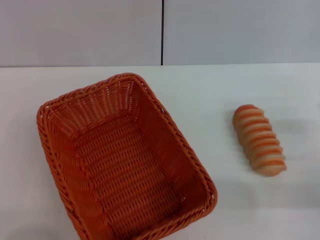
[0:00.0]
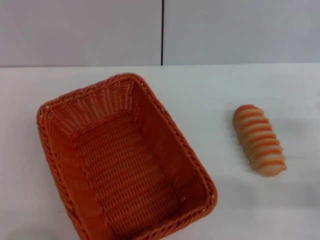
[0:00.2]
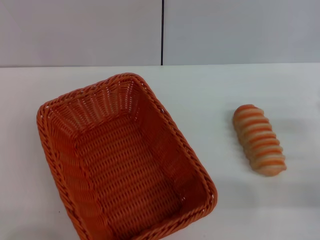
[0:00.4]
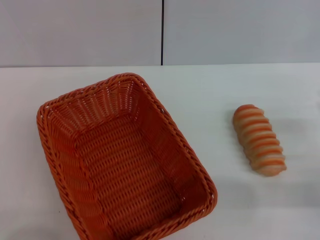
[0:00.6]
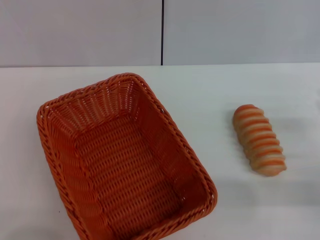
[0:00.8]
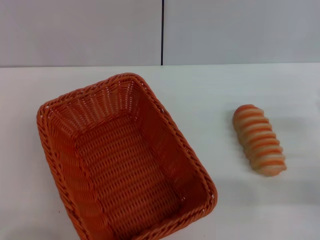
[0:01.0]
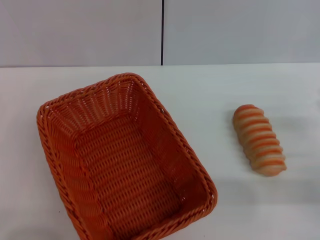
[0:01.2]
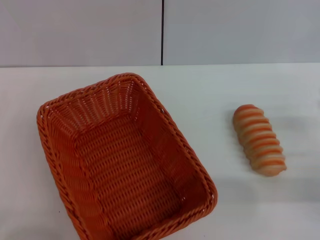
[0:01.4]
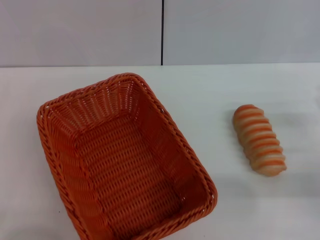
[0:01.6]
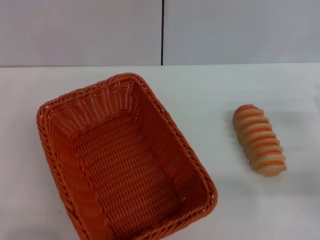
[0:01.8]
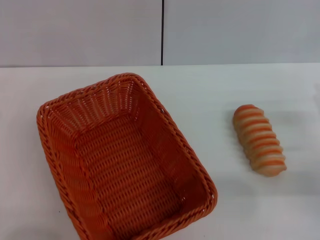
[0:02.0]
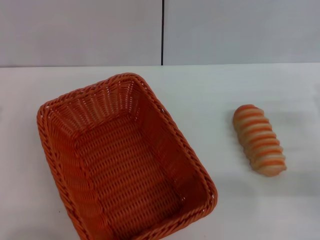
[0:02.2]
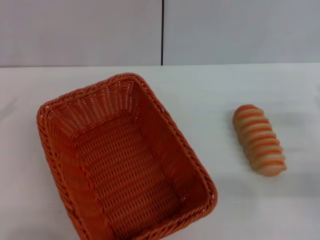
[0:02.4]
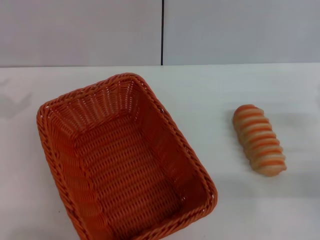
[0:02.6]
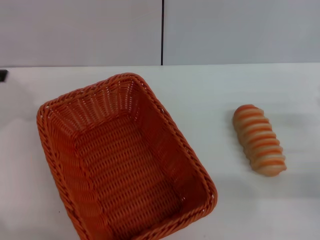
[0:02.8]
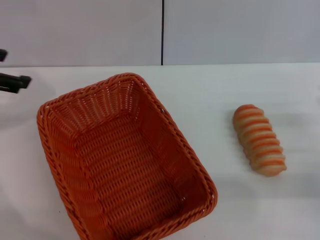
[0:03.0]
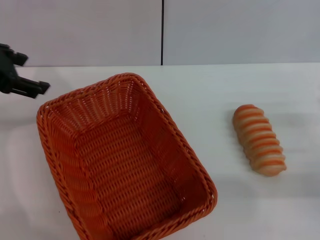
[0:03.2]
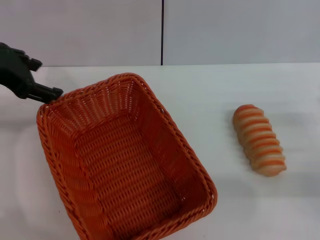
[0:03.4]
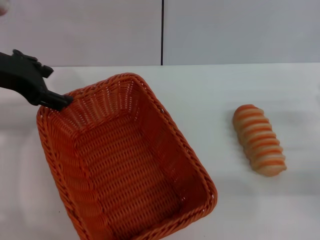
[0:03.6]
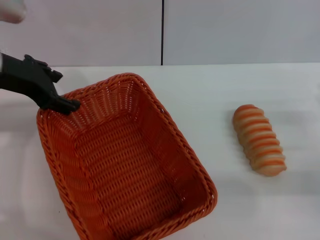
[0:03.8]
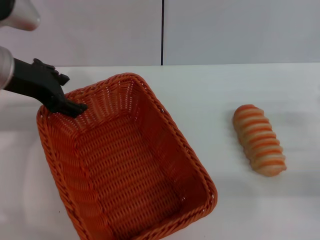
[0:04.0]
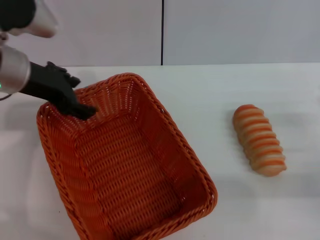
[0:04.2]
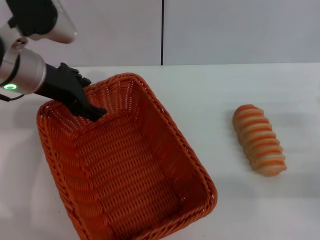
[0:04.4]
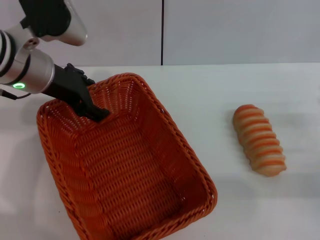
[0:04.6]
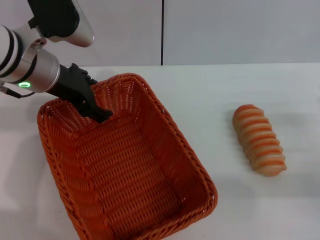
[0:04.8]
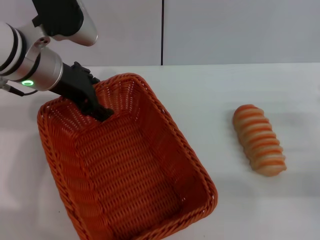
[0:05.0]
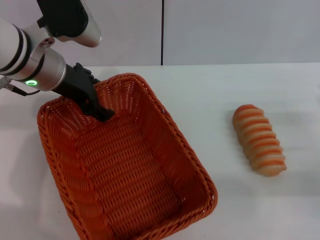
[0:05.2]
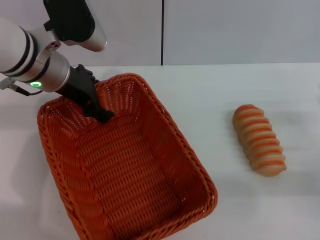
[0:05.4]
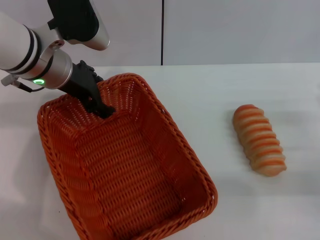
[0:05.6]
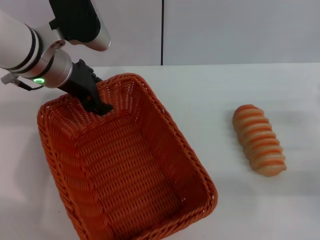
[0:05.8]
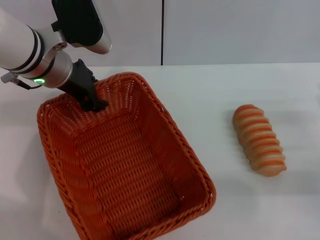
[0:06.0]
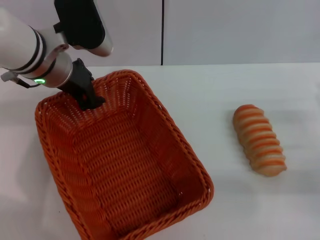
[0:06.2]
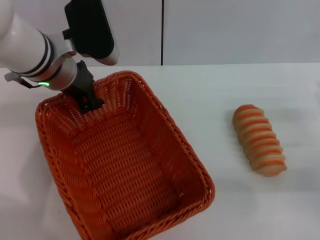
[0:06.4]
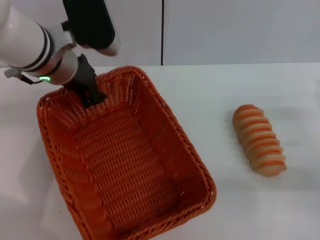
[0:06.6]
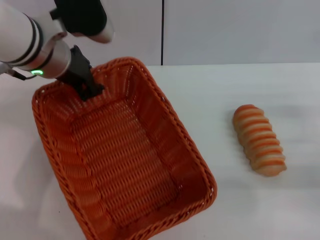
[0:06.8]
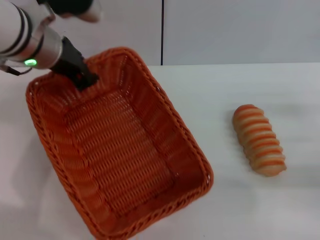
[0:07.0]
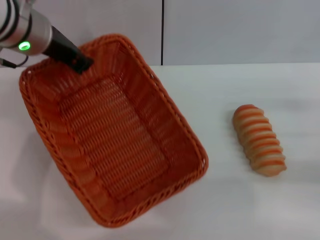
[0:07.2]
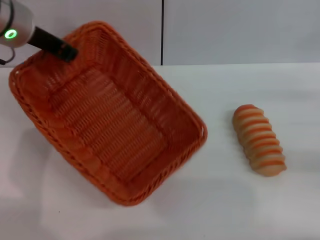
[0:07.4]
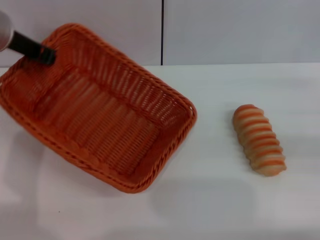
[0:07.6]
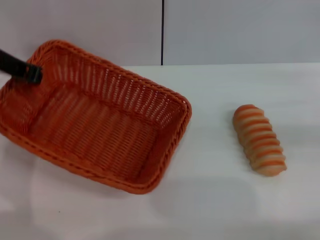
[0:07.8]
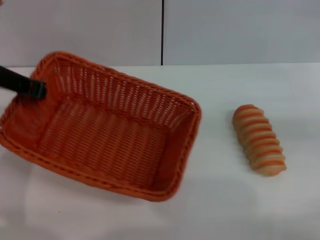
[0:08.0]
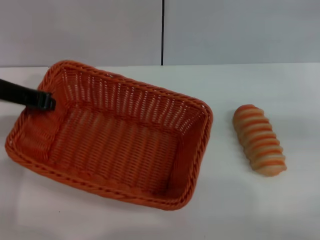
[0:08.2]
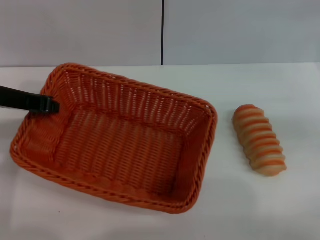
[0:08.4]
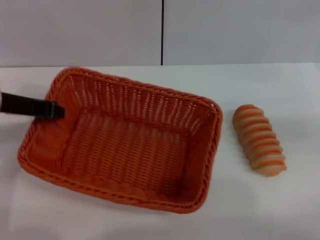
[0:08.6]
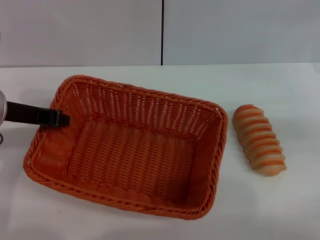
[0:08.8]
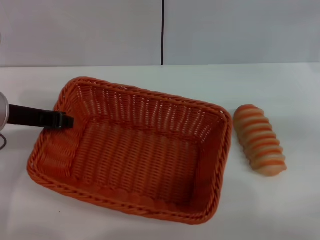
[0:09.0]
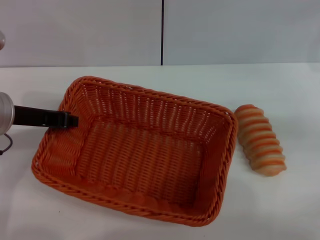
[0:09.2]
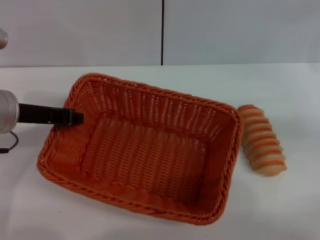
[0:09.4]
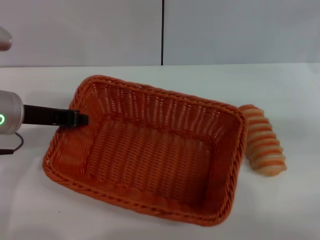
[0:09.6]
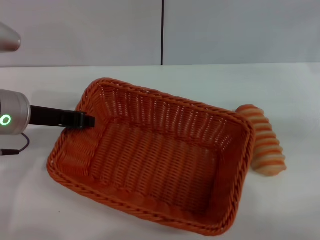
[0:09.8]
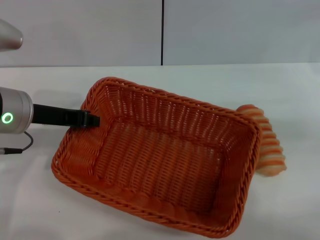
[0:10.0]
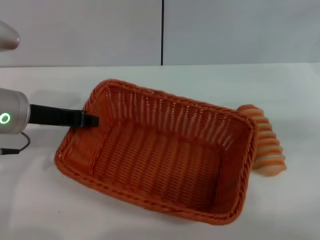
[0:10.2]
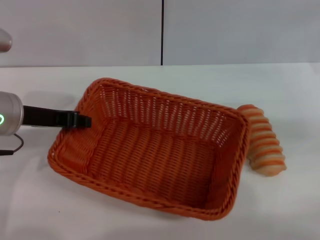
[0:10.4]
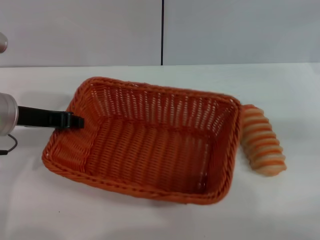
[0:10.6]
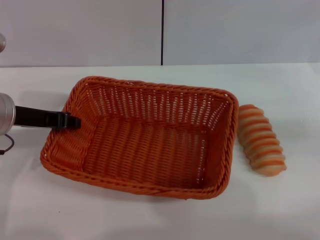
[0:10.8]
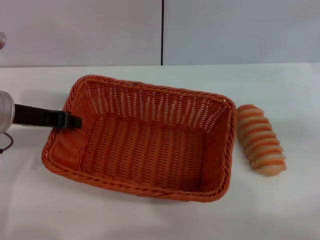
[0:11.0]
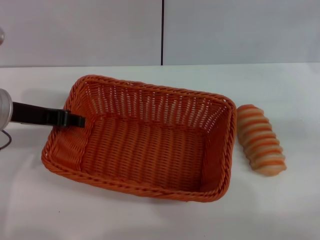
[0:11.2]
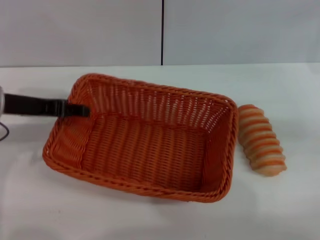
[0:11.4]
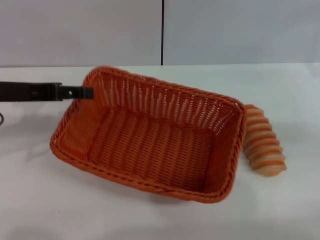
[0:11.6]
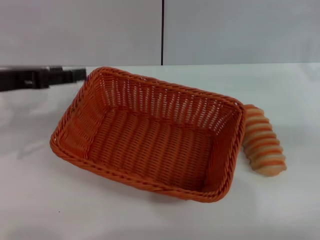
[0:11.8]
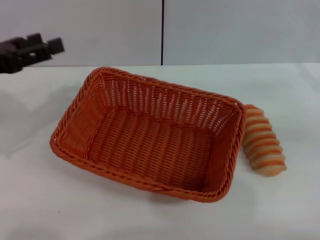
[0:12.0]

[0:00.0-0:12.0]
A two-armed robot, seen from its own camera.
Step, 0:00.0 to 0:07.0: Pick up the light basket with the left gripper.
Step, 0:07.4 to 0:11.6: Place the light basket in the center of view with the left gripper.
0:01.6 to 0:03.0: The left gripper shifts approximately 25 cm upward, forward and to the right.
0:03.0 to 0:04.4: The left gripper moves to the right and downward, roughly 10 cm.
0:04.4 to 0:06.0: The grippers stay close to where they were, moving slightly.
0:06.0 to 0:07.6: The left gripper heads to the left and upward, covering about 10 cm, and closes up, while the right gripper moves upward, to the right and forward, about 10 cm.
0:07.6 to 0:09.0: The left gripper shifts some 10 cm backward and downward. Meanwhile the right gripper moves about 5 cm.
0:09.0 to 0:10.4: The grippers move only a little.
0:10.4 to 0:12.0: The left gripper is displaced to the left by some 10 cm, and opens up.

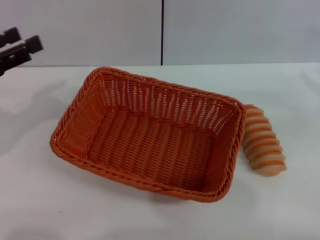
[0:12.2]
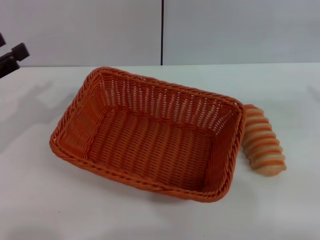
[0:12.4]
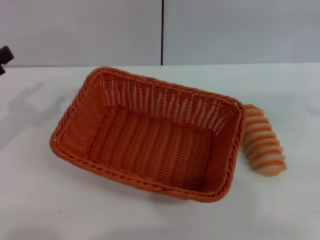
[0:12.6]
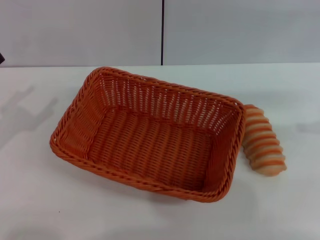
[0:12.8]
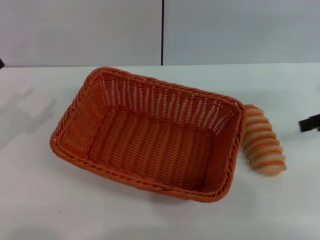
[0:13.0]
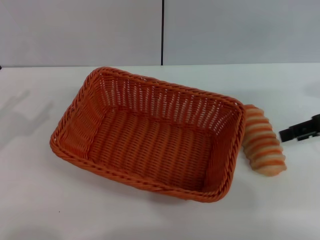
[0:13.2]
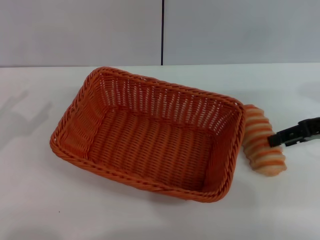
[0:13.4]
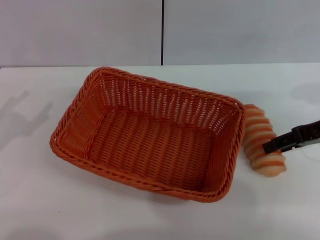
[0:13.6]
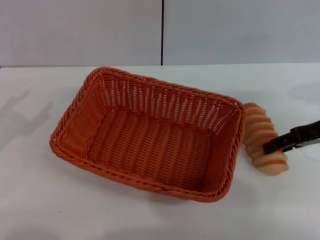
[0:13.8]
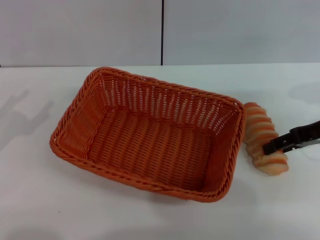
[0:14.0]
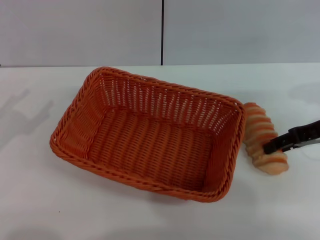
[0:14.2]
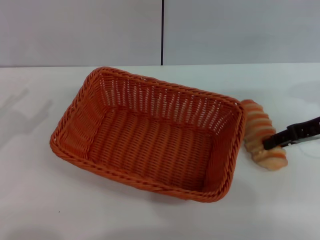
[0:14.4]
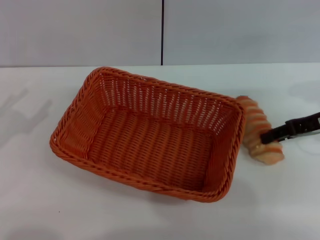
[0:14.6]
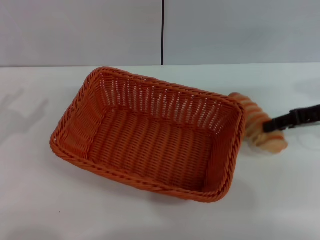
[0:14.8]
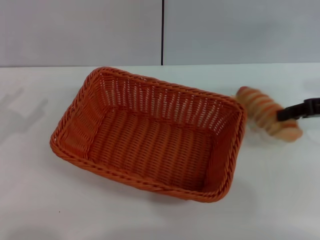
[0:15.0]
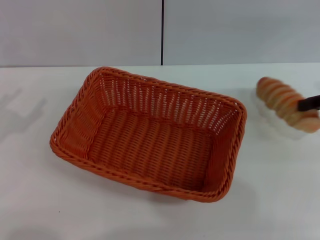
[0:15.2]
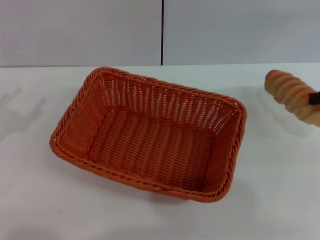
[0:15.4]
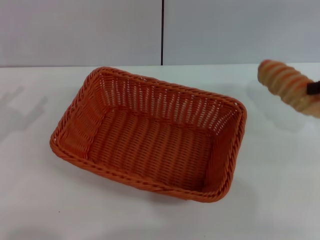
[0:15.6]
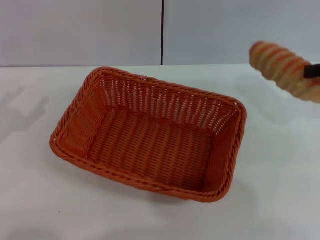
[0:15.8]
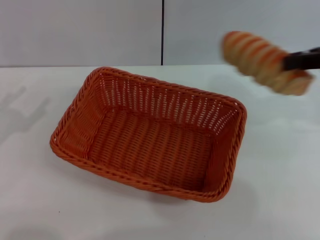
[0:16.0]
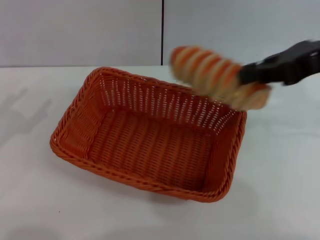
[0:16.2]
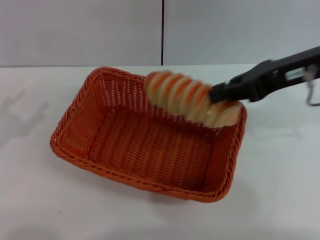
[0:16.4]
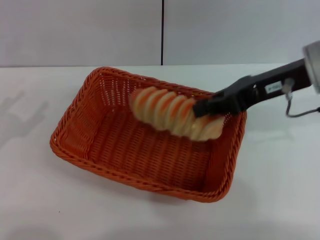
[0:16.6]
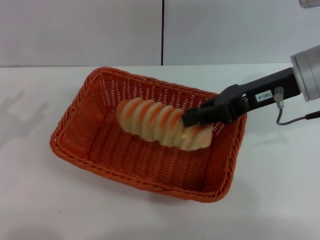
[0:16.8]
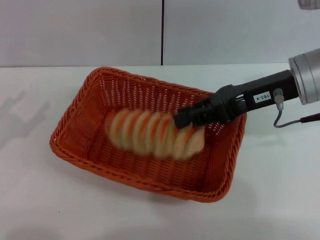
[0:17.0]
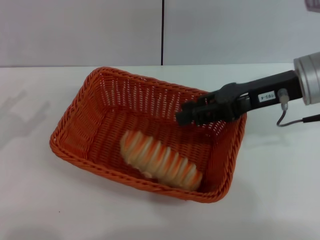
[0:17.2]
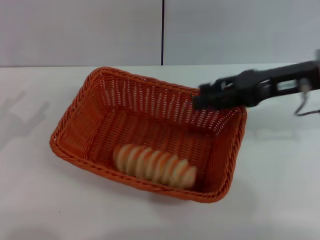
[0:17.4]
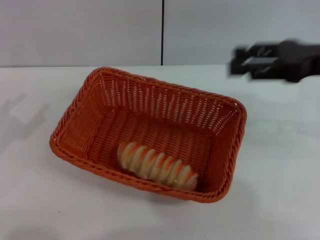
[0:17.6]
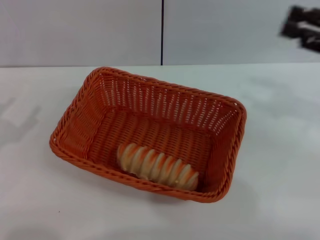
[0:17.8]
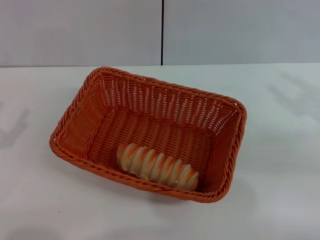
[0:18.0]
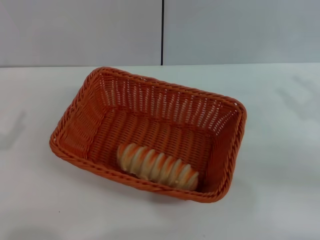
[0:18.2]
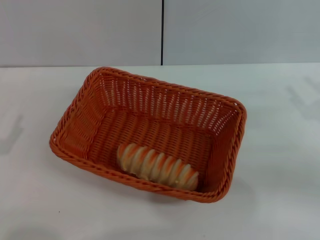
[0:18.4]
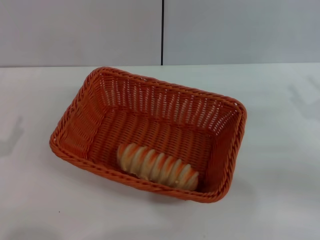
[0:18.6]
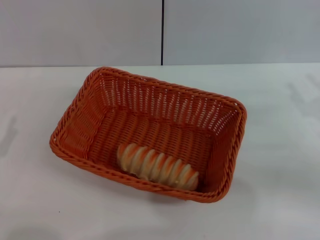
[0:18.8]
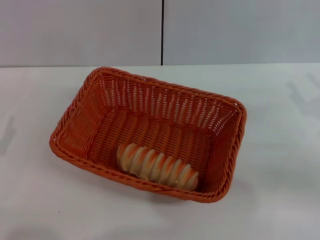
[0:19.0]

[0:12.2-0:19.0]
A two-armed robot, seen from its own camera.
Step, 0:12.2 to 0:15.2: Pick up the long bread with the right gripper.
Step, 0:15.4 to 0:17.4: Place the long bread into the light basket with the right gripper.
0:12.2 to 0:13.6: The right gripper moves to the left, about 10 cm, while the left gripper is displaced downward by roughly 5 cm.
0:13.6 to 0:15.0: The right gripper closes its fingers.
0:15.0 to 0:16.2: The right gripper is displaced upward and to the left by approximately 15 cm, and closes its fingers.
0:16.2 to 0:17.6: The right gripper goes approximately 5 cm downward, and opens.
0:17.6 to 0:19.0: The right gripper heads downward, backward and to the right, covering roughly 15 cm.

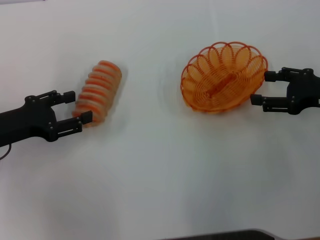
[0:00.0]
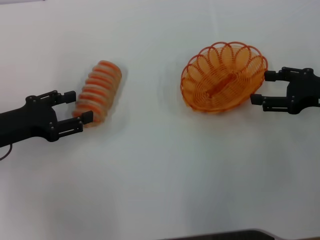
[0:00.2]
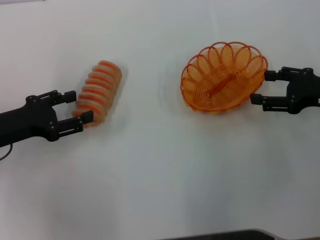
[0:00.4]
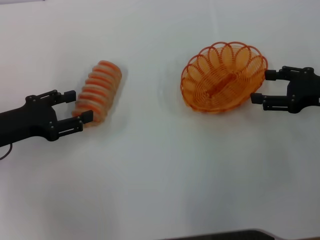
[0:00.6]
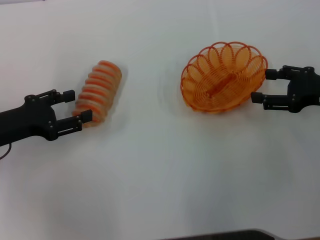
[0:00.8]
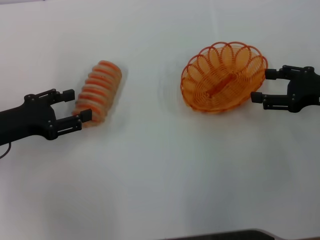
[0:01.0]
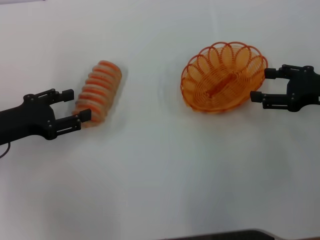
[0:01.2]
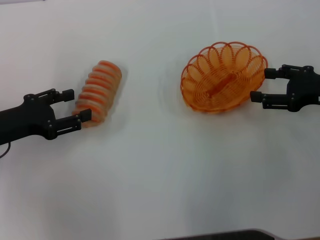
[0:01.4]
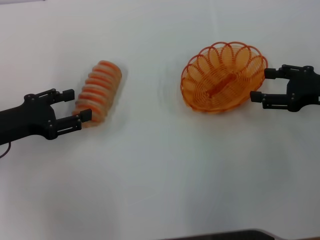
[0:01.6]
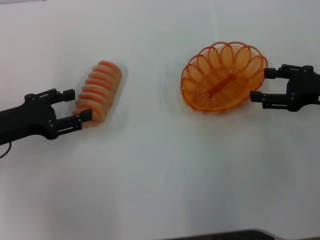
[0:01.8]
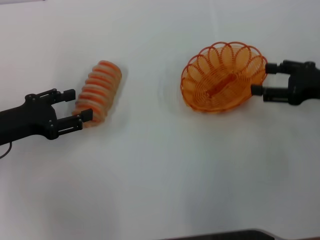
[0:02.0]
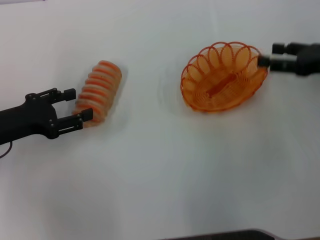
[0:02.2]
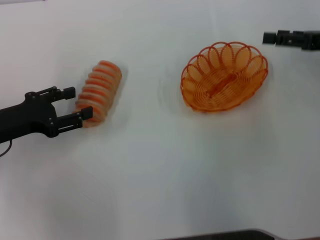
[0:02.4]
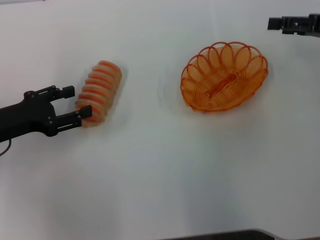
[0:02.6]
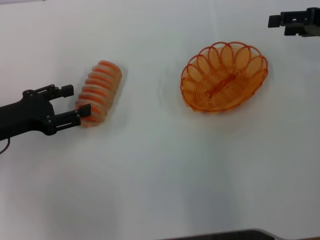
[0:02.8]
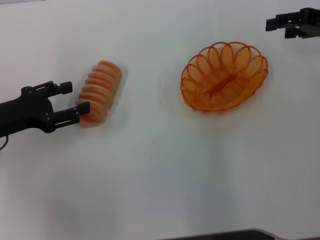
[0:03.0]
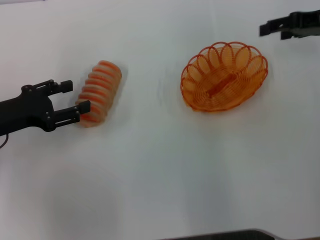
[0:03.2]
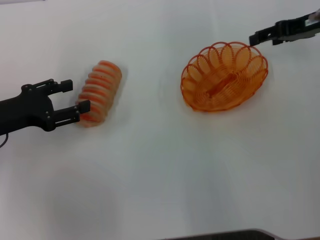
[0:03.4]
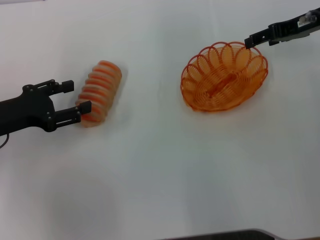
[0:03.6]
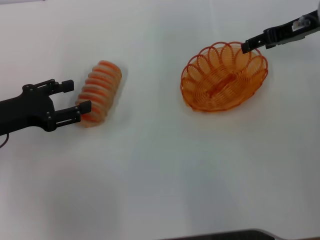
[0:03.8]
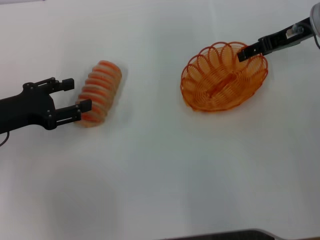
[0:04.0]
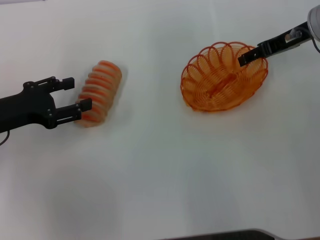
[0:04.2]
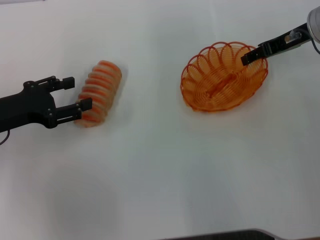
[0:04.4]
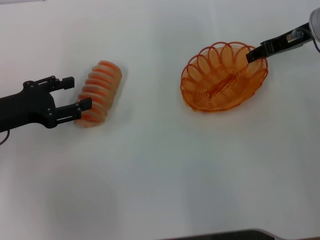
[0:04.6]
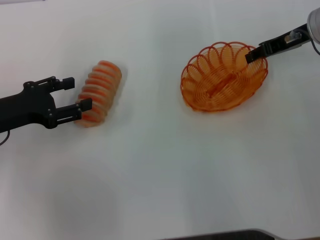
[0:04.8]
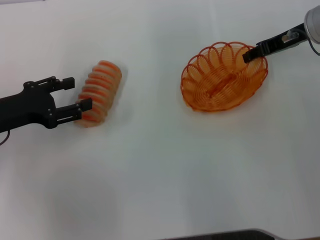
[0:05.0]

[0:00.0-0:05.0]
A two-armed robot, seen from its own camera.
0:00.0 to 0:01.6: The two grippers keep their place.
0:01.6 to 0:03.4: The right gripper goes approximately 15 cm forward and upward.
0:03.4 to 0:05.0: The right gripper closes up.
